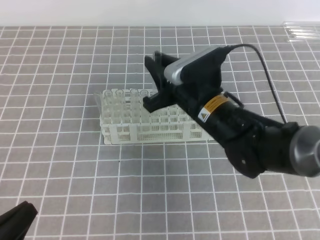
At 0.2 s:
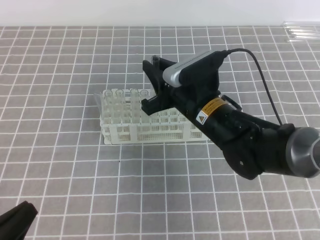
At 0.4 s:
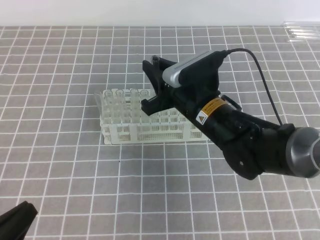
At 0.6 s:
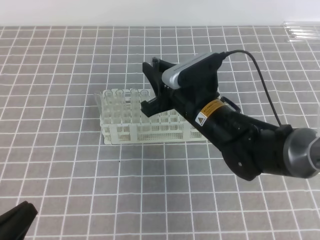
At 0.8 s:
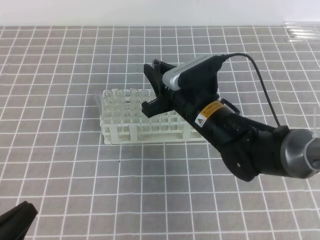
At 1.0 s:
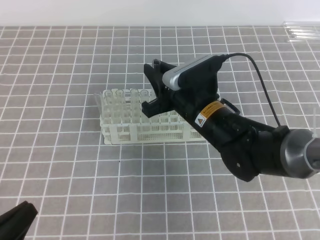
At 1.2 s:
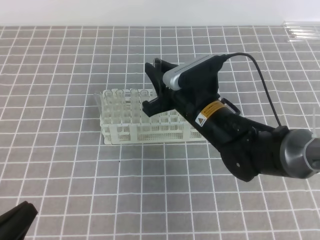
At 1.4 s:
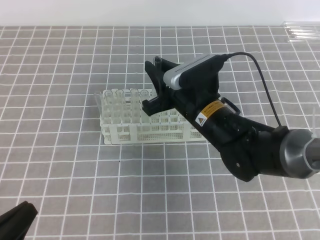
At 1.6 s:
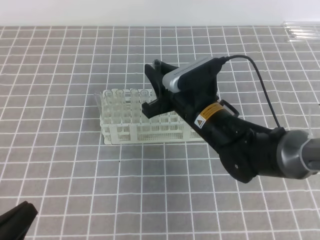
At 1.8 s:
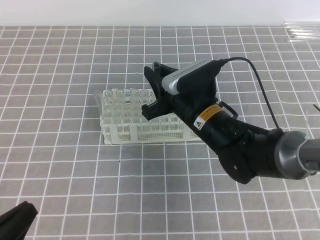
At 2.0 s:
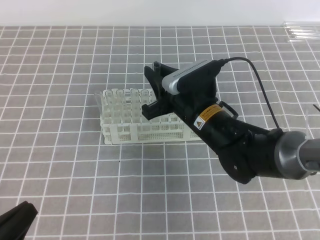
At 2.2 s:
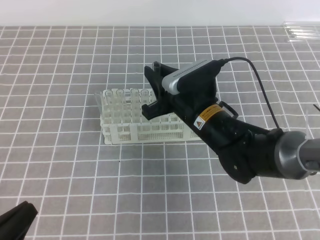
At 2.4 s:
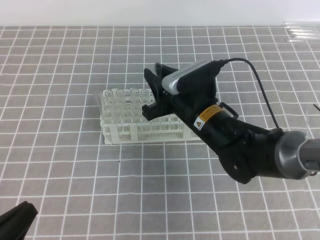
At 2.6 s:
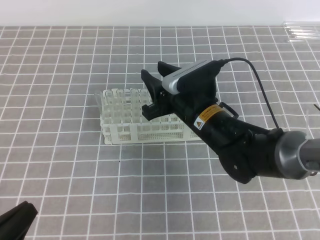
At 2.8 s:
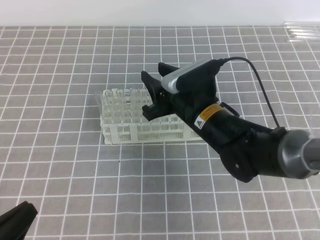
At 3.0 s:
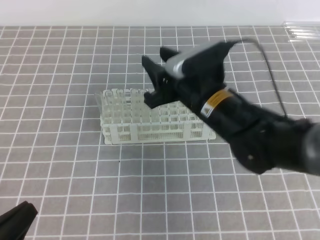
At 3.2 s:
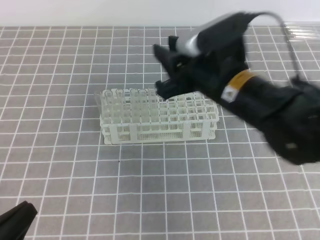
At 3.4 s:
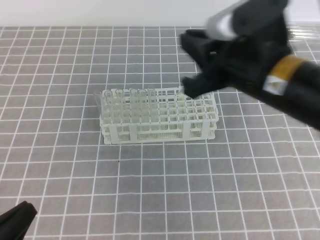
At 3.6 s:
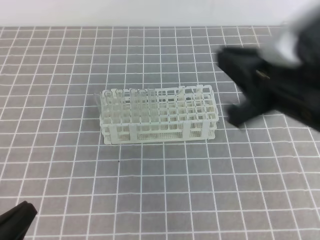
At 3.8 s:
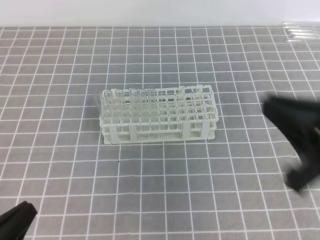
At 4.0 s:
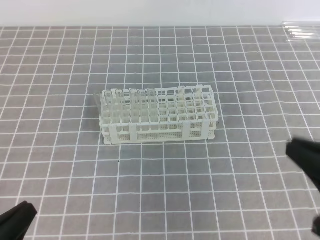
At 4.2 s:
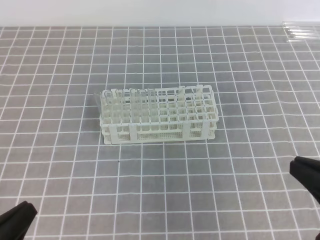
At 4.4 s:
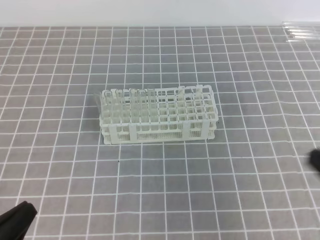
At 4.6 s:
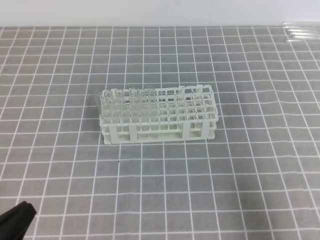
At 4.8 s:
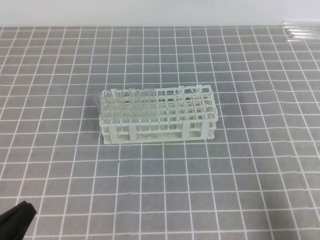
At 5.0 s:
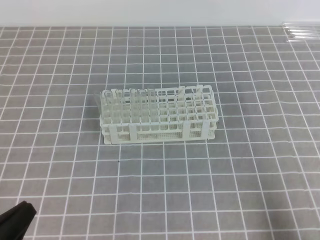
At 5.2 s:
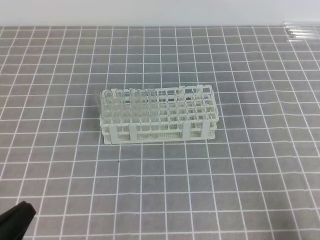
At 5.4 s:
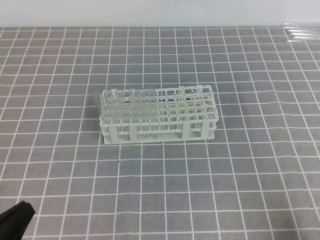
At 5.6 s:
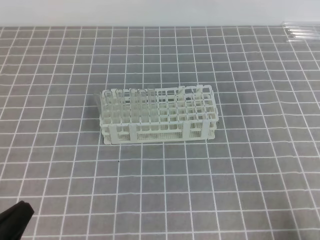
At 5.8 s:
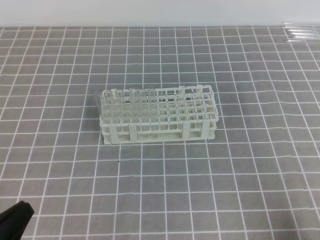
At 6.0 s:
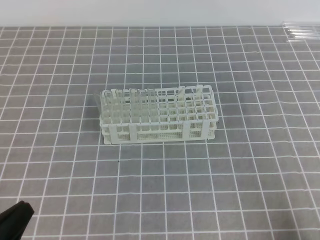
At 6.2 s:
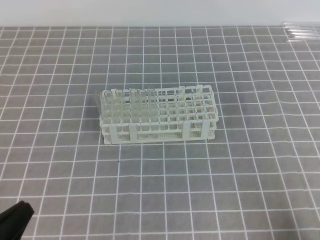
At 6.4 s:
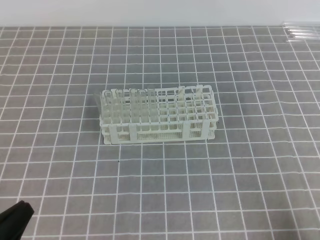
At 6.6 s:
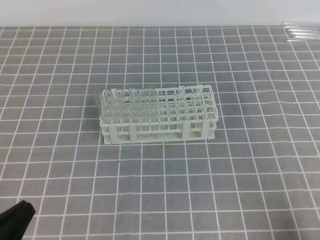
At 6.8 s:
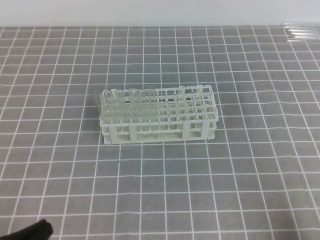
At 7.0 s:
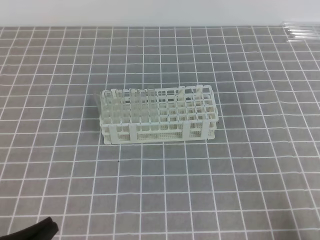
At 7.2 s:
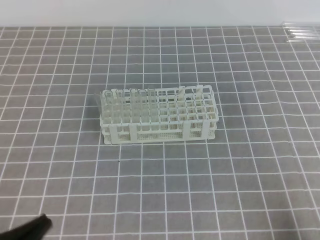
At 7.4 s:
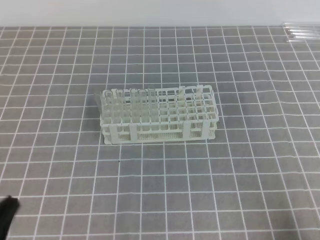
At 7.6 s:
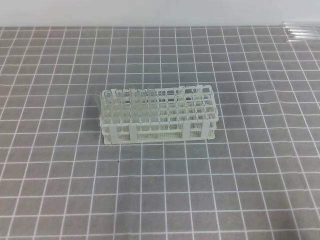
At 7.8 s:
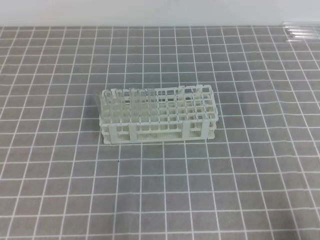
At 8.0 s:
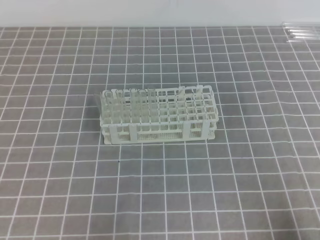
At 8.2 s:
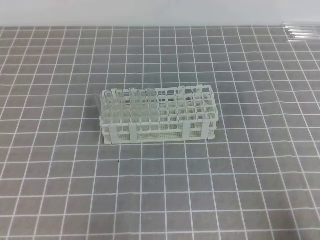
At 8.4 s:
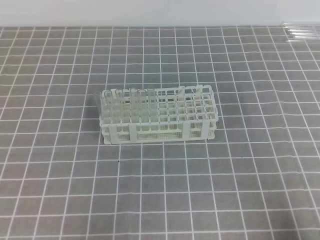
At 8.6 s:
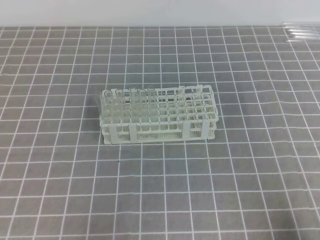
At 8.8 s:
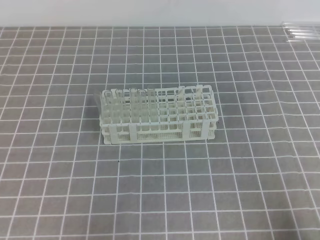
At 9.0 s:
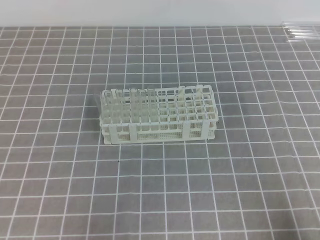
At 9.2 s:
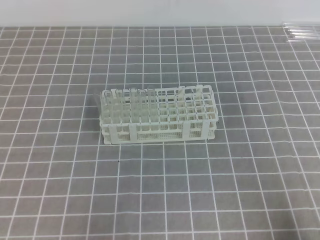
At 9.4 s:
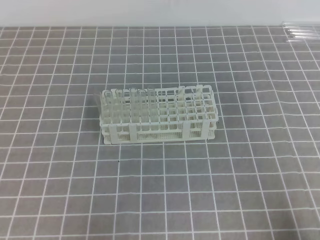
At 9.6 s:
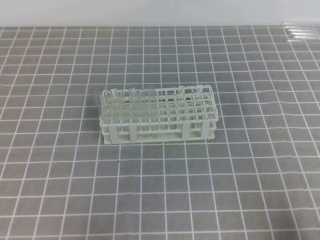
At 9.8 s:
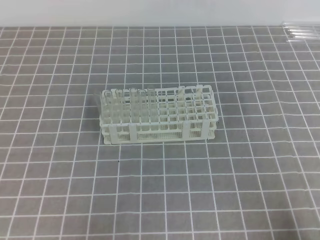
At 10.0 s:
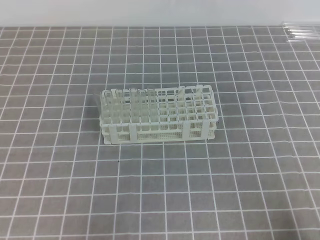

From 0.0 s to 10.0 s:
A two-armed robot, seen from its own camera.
From 0.0 s to 1.4 s: There are only small adjustments of the grippers.
From 1.4 s to 2.8 s: The right gripper opens up.
From 2.8 s to 4.2 s: The right gripper is displaced backward and to the right by about 30 cm, and closes its fingers.
From 4.2 s to 5.8 s: The right gripper is displaced downward and to the right by some 15 cm.
From 8.6 s to 10.0 s: Both grippers stay put.
